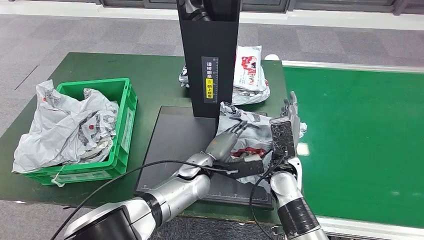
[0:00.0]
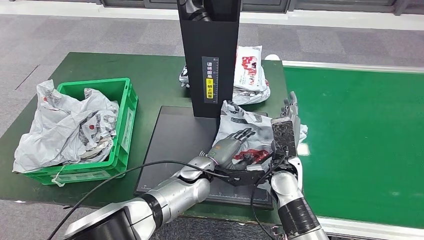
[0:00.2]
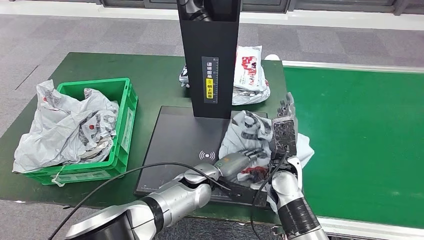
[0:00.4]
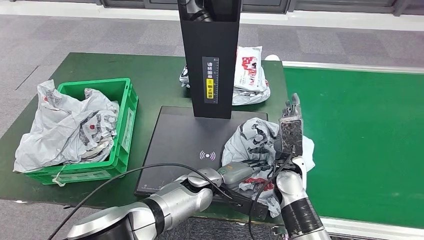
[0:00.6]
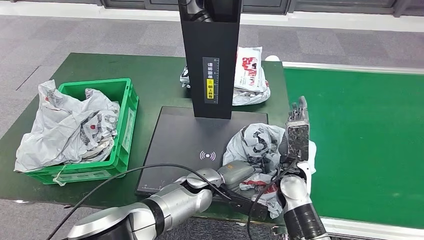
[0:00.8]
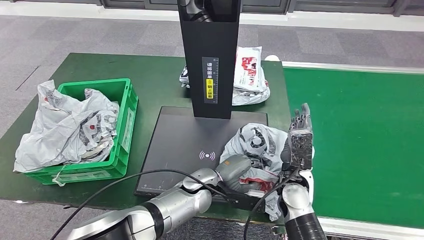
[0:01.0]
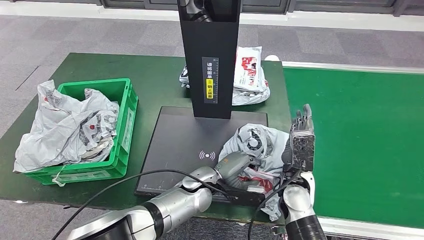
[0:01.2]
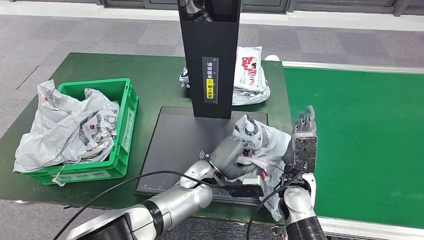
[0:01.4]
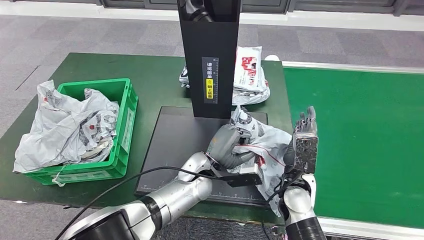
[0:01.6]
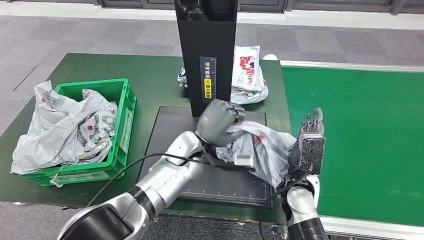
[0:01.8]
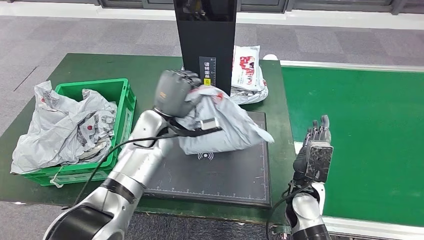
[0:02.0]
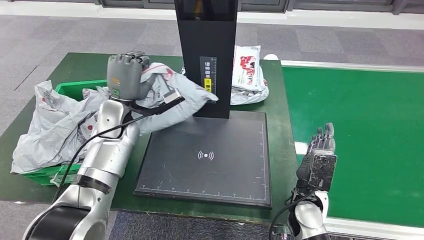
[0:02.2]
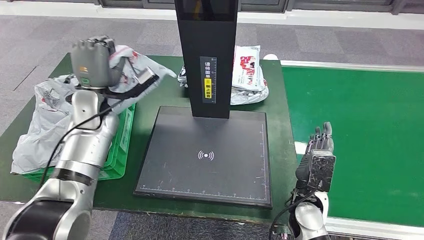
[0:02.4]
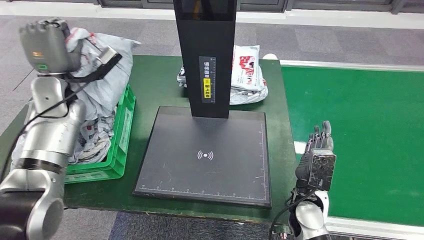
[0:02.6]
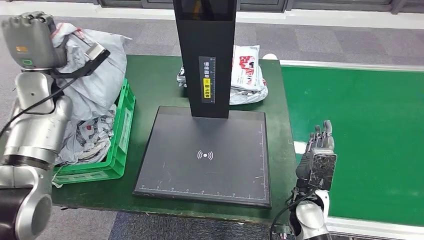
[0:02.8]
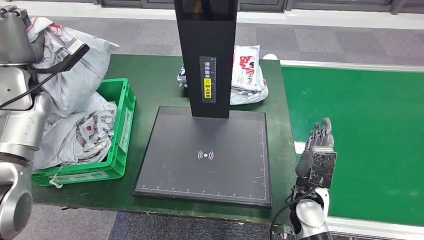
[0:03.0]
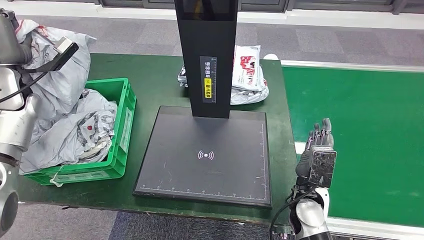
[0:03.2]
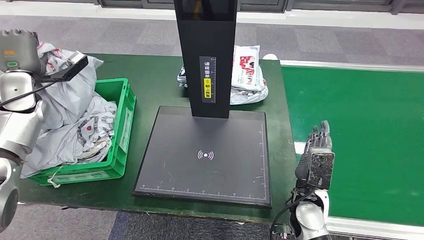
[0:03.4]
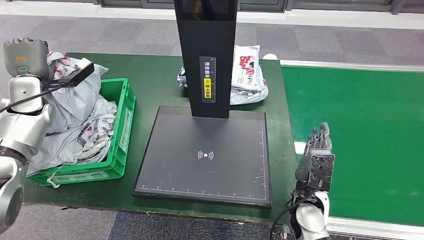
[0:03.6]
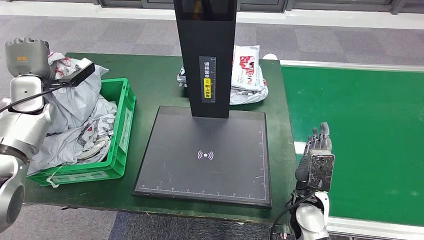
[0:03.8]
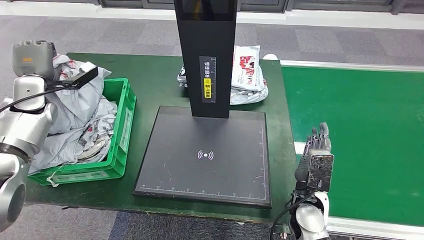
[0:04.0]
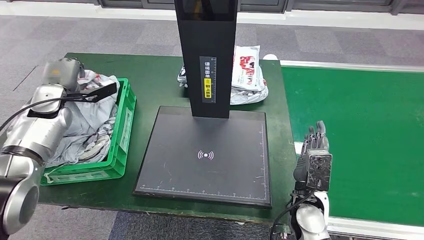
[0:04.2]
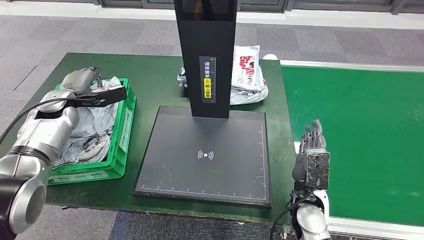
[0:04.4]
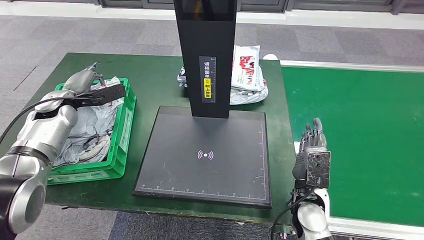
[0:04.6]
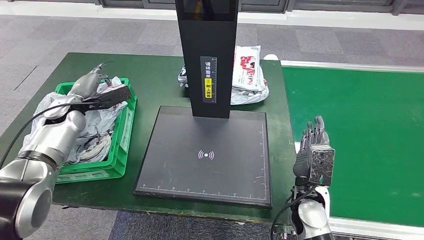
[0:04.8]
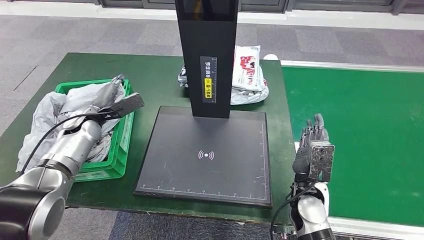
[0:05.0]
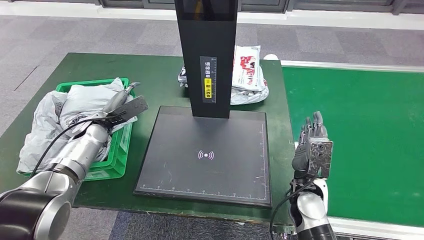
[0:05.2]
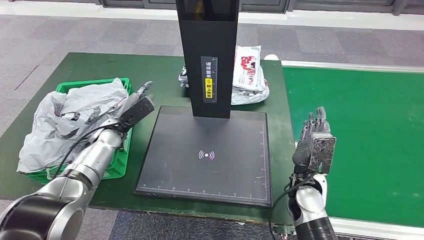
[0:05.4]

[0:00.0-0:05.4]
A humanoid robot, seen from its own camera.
Step, 0:00.2 to 0:02.6: Pick up the parcel from the inbound machine.
Step, 0:02.8 to 0:05.4: Place the parcel into the delivery box.
0:02.8 to 0:04.0: The left hand heads to the left, covering roughly 5 cm.
